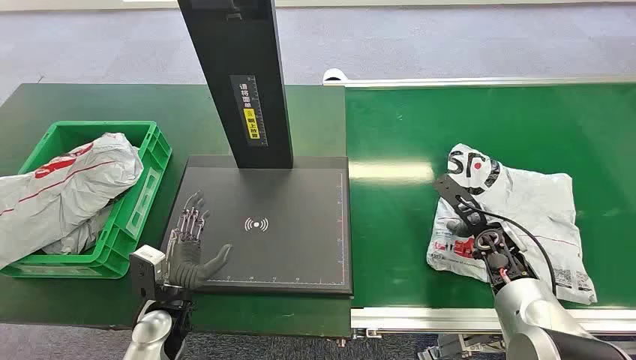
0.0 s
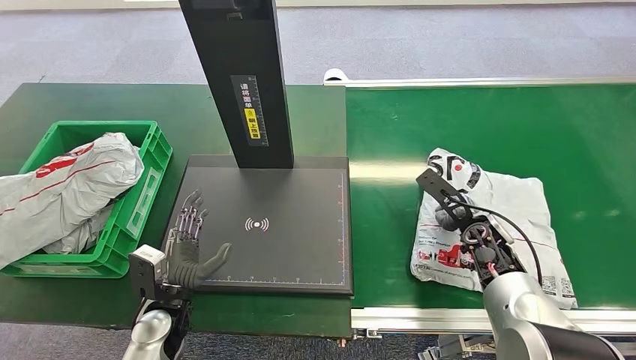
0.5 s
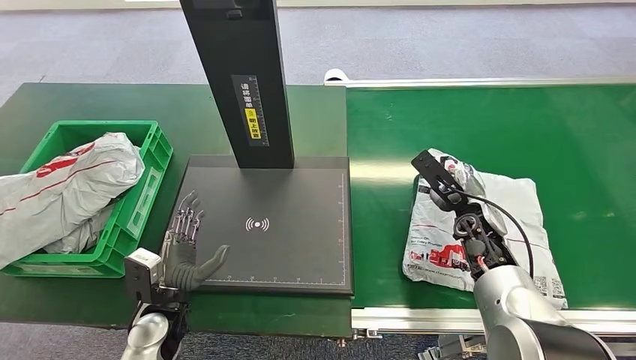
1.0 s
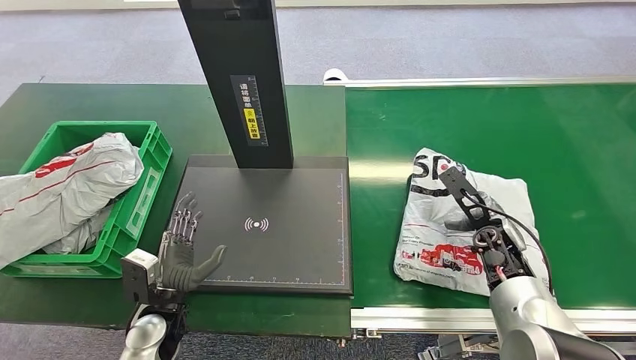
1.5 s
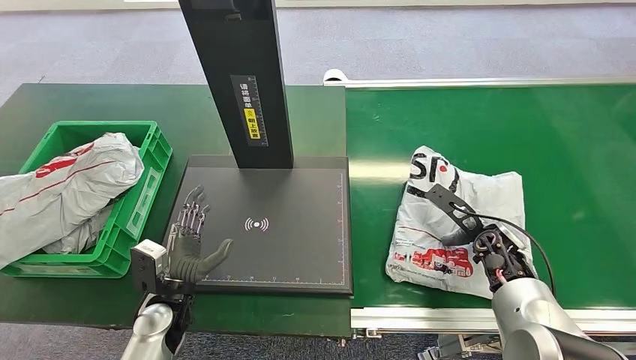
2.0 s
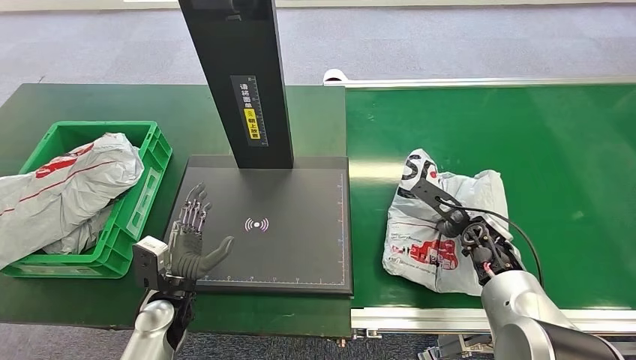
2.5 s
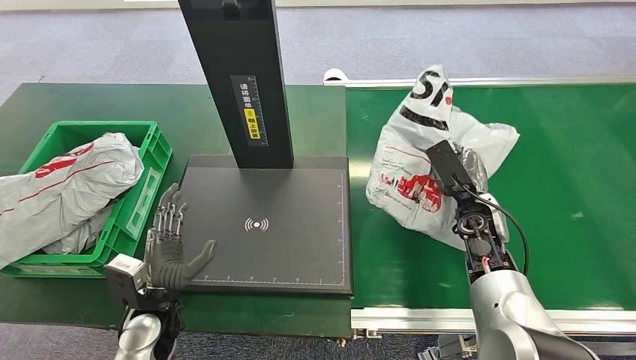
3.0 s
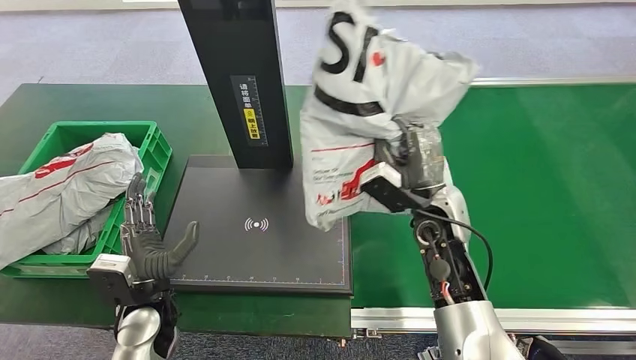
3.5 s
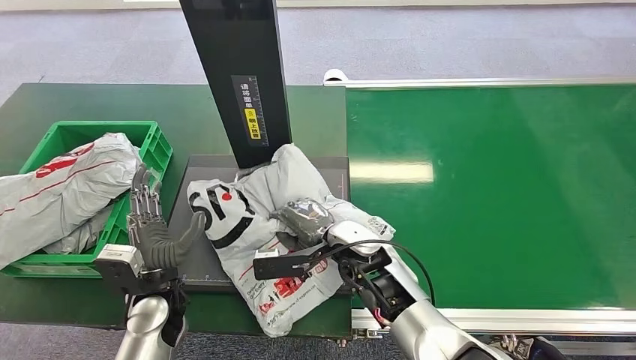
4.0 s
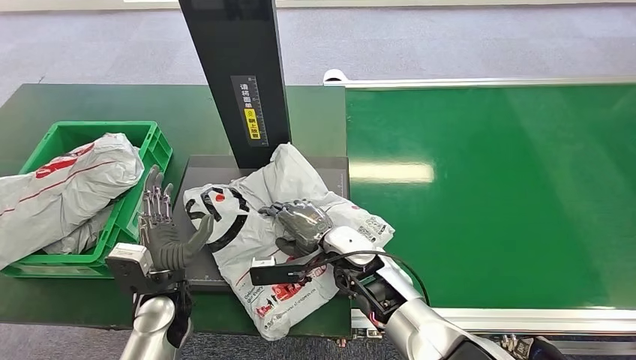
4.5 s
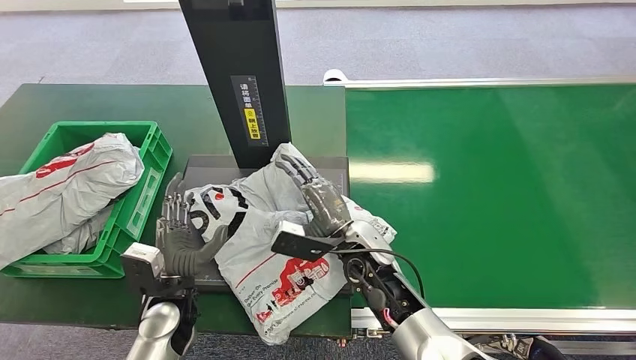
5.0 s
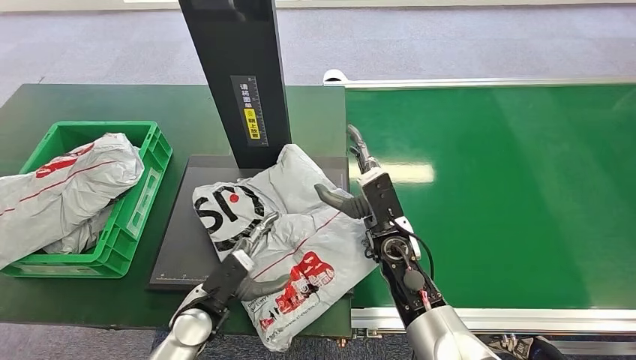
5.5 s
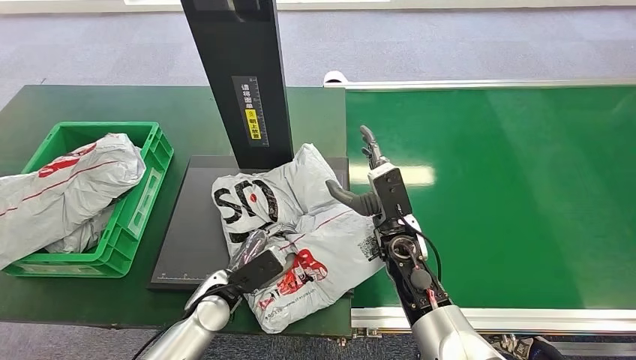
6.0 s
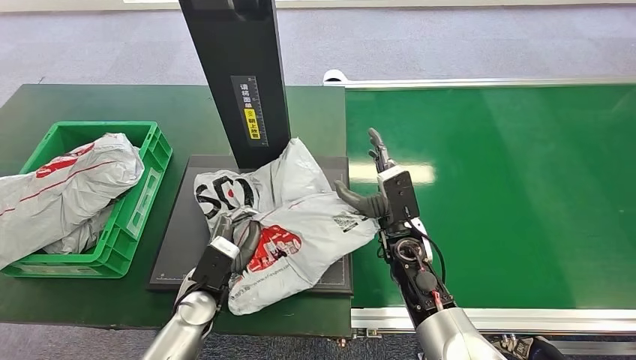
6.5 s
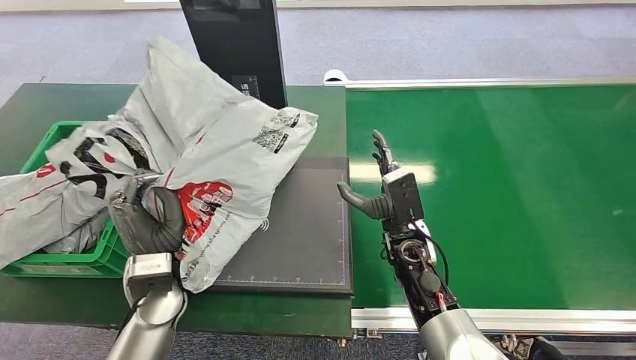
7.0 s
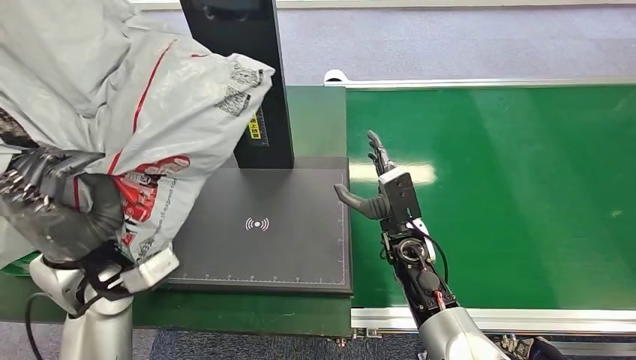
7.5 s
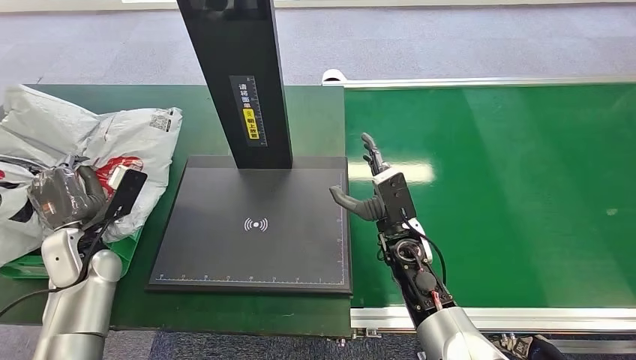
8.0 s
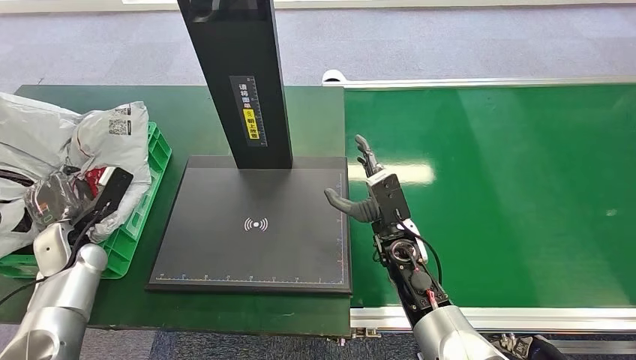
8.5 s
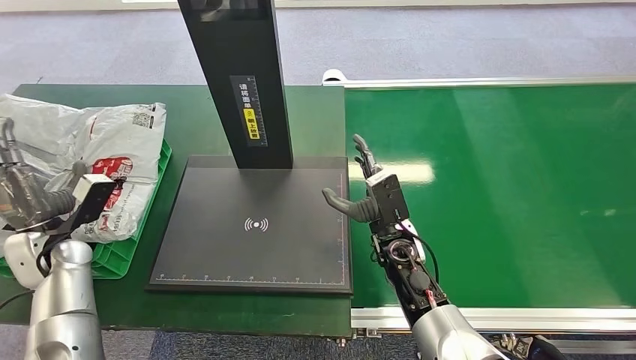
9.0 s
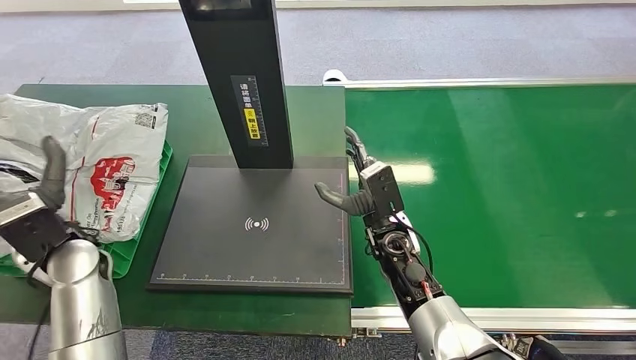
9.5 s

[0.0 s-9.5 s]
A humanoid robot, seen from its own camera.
Step, 0.0 to 3.5 s: Pick up the package from the conveyor belt.
Step, 4.0 to 5.0 s: Place the package onto the inbound machine.
Step, 6.0 to 7.0 s: Pick up the package from the inbound machine.
Step, 7.5 to 9.5 s: Place the package into the parcel locker.
4.0 to 5.5 s: Both hands travel together to the right, some 5 cm.
